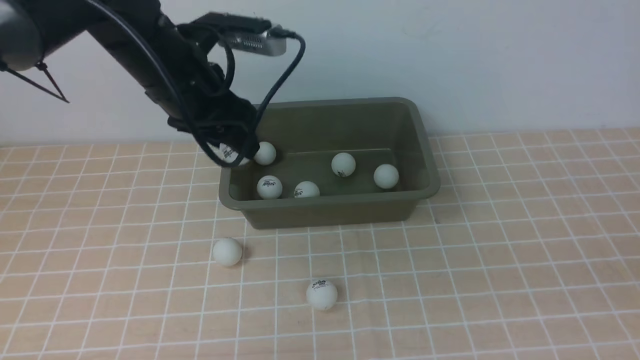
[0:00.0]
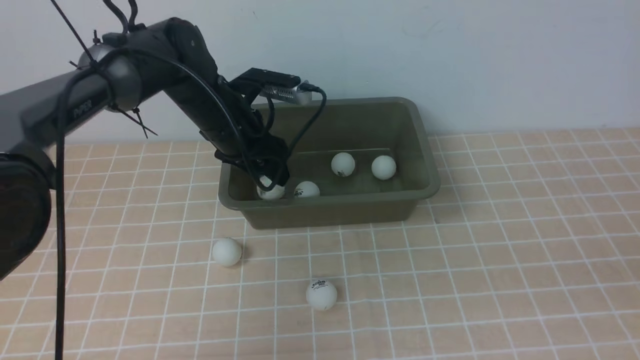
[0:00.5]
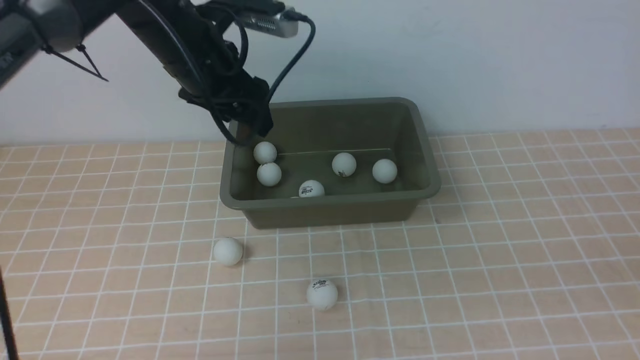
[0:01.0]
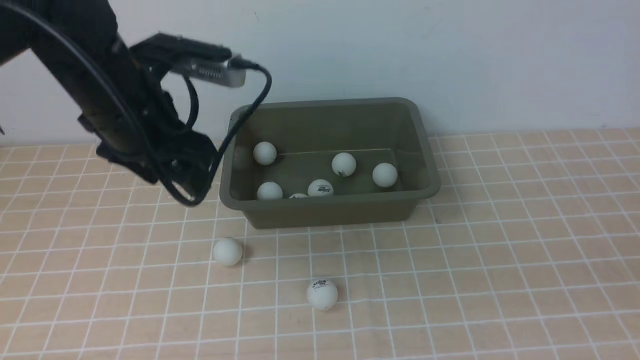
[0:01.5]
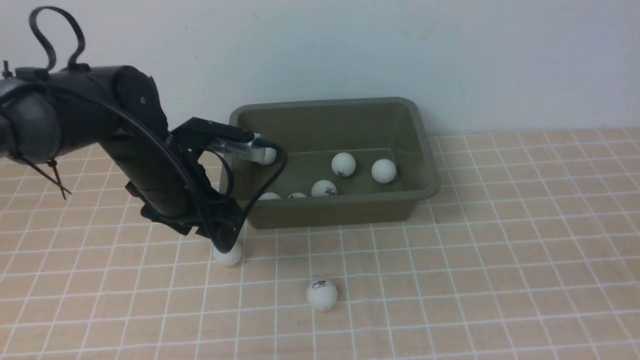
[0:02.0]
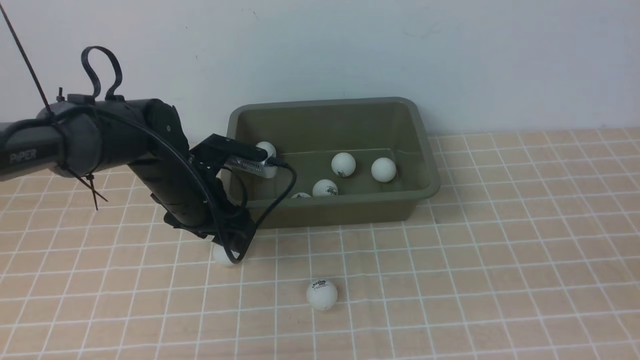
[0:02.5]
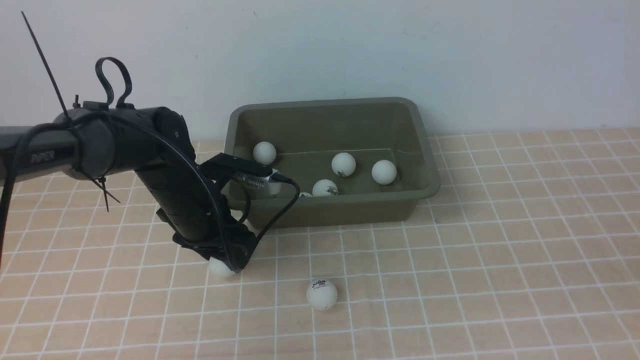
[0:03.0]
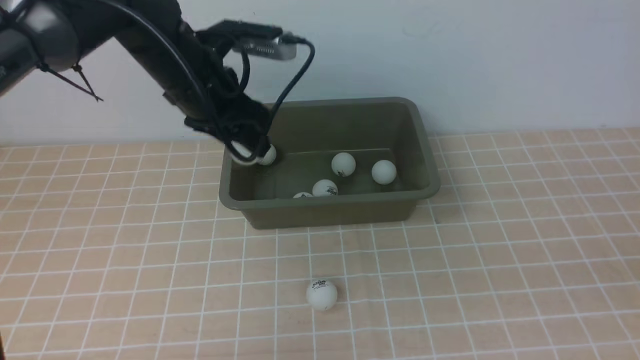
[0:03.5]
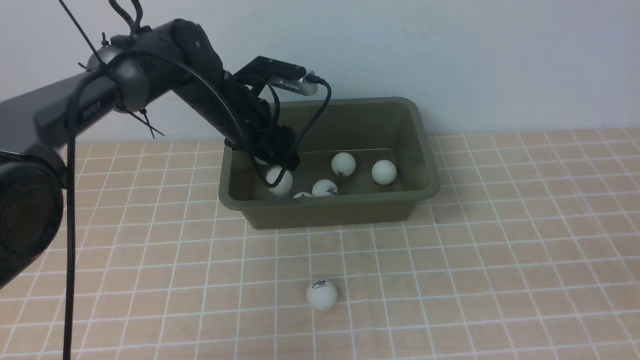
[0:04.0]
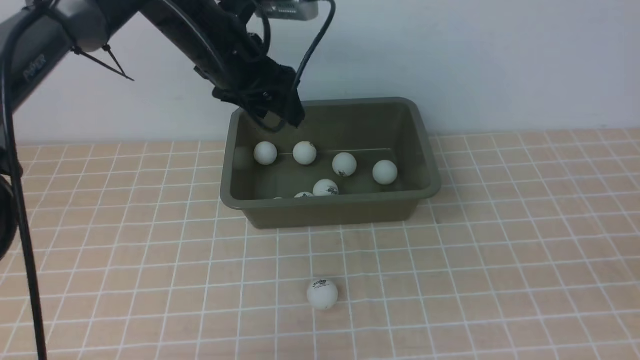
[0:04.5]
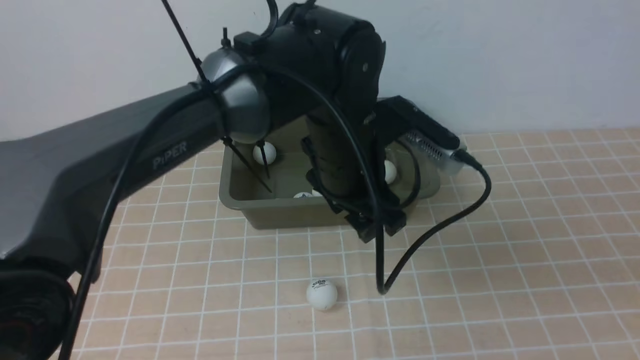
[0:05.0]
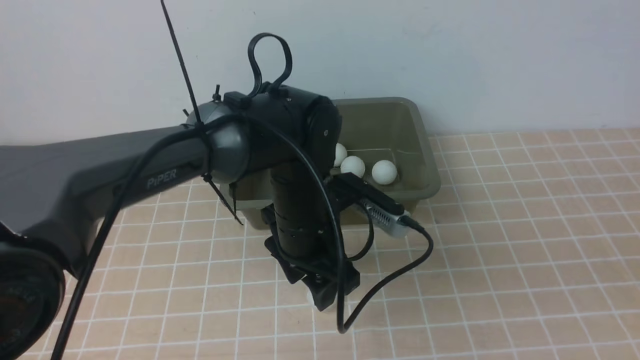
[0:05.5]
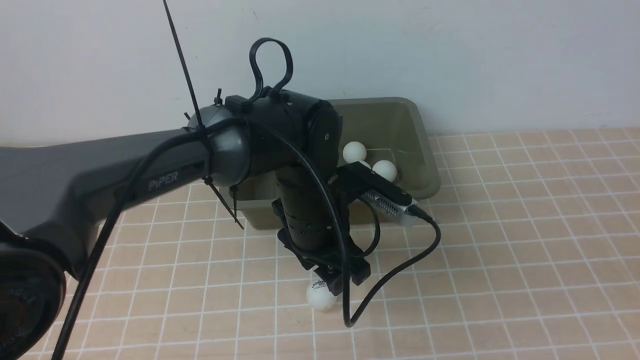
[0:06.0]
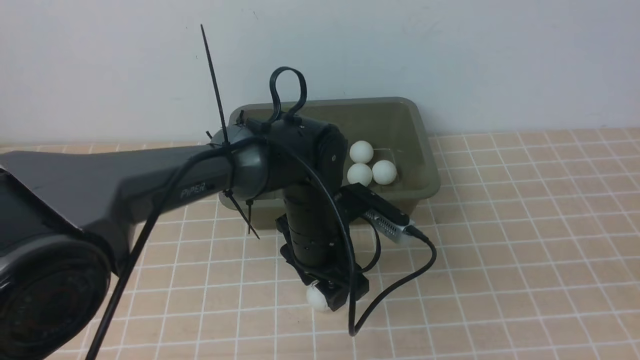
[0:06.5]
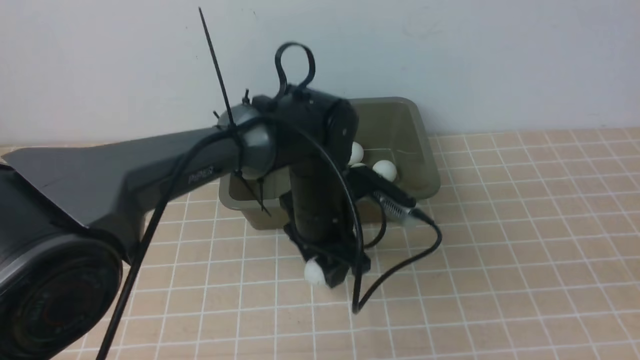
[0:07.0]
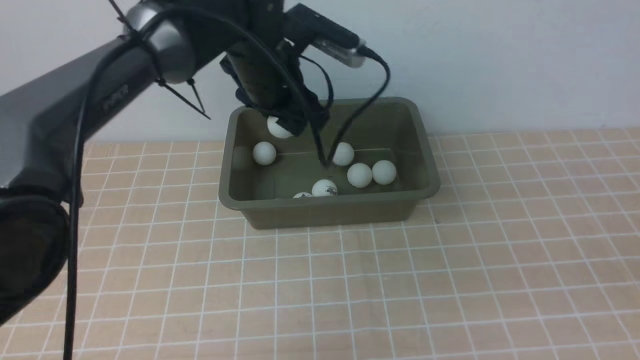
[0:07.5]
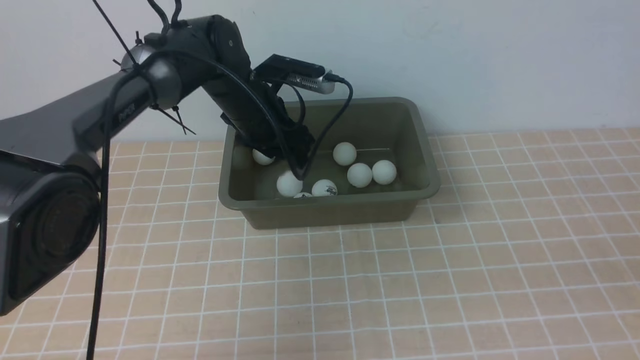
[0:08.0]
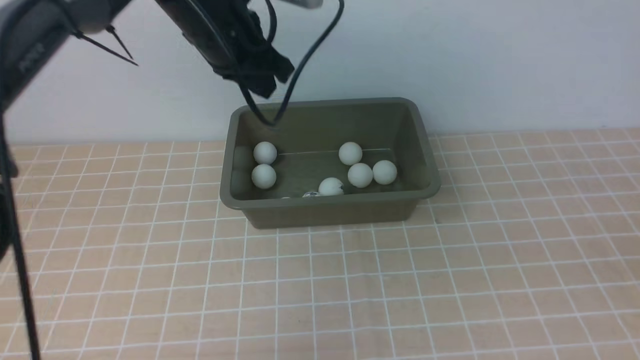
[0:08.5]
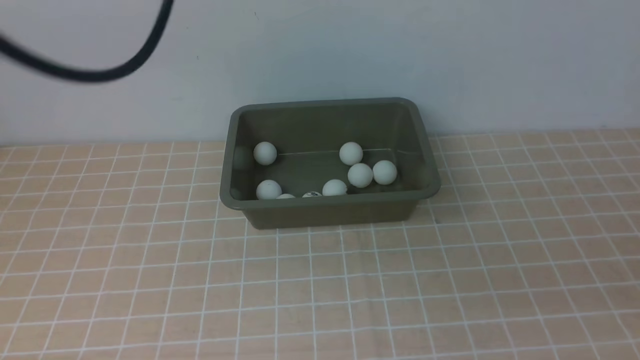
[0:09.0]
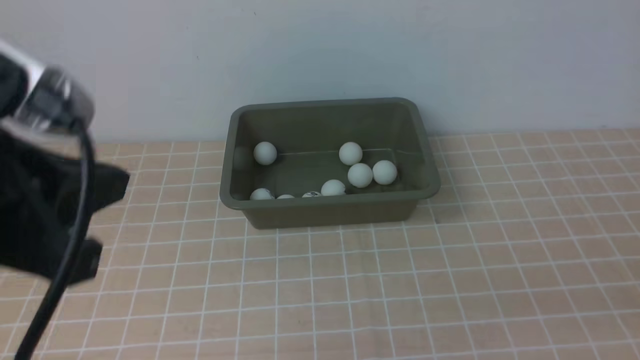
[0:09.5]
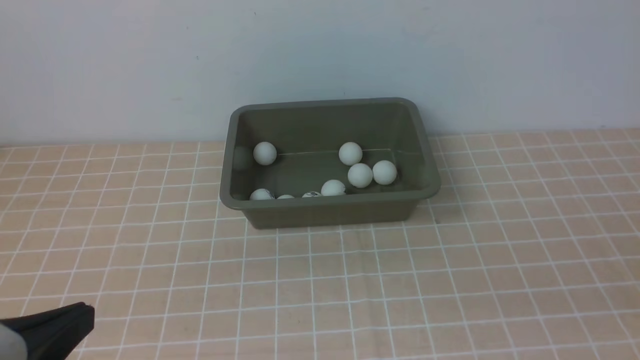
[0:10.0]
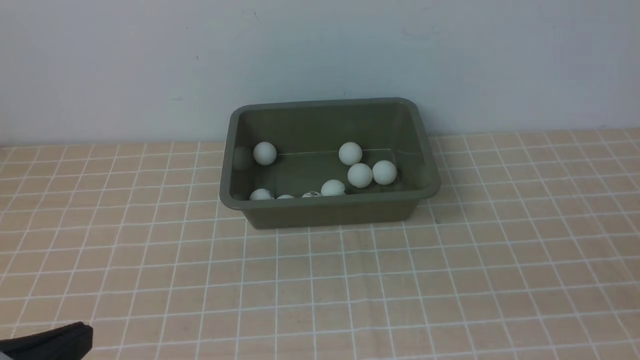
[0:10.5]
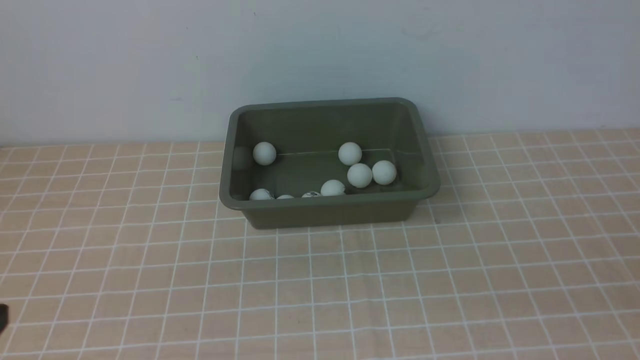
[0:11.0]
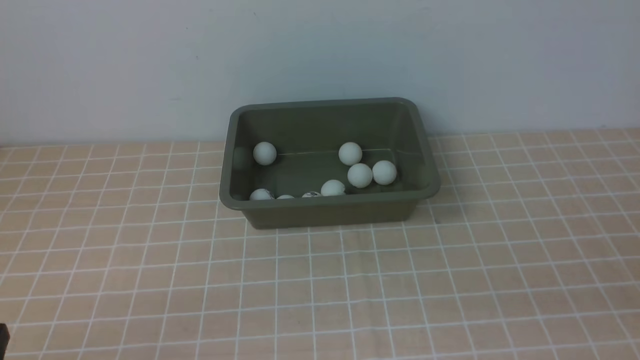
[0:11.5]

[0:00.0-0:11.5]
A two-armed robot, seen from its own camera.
Step, 0:01.0 to 0:03.0: use the left arm to clamp the table tennis ball closest to it.
Step, 0:03.5 to 0:04.0: use the left arm to put the table tennis ball into the box.
Step, 0:04.5 to 0:06.5: use the left arm to clamp the table tennis ball closest to it.
Step, 0:07.5 to 0:08.0: use the left arm to put the table tennis ball into the box.
0:00.0 to 0:02.0: The left gripper travels downward by roughly 5 cm, and reaches some 5 cm forward, then returns.
0:02.0 to 0:04.0: The left gripper goes about 10 cm forward.
0:04.0 to 0:06.0: The left gripper goes some 15 cm backward and to the right.
0:06.0 to 0:07.5: The left gripper is displaced forward and upward by approximately 10 cm.
0:07.5 to 0:09.5: The right gripper moves downward, some 5 cm; the left gripper goes about 30 cm backward, to the left and upward, and closes its fingers.
0:09.5 to 0:11.5: The left gripper moves downward and backward, about 25 cm.

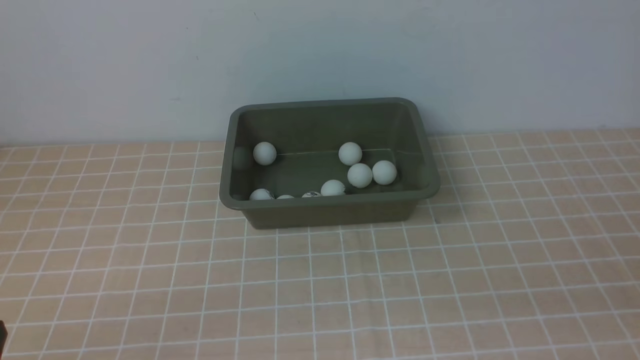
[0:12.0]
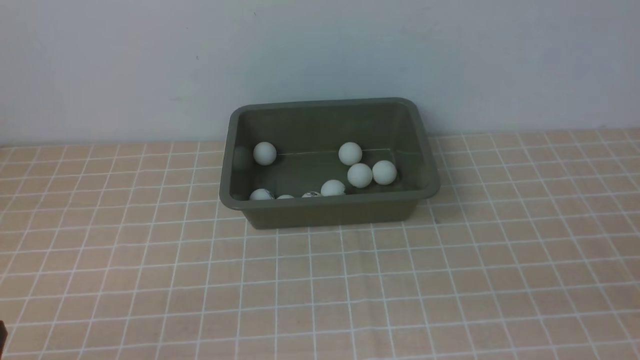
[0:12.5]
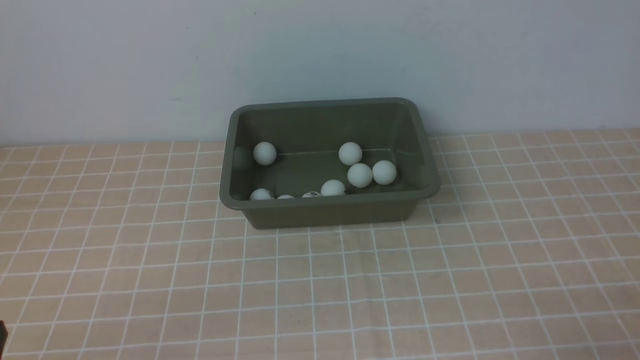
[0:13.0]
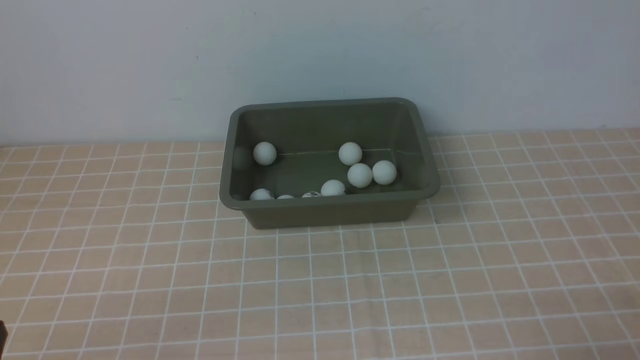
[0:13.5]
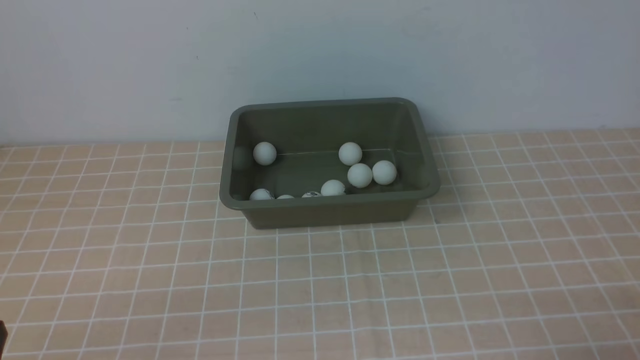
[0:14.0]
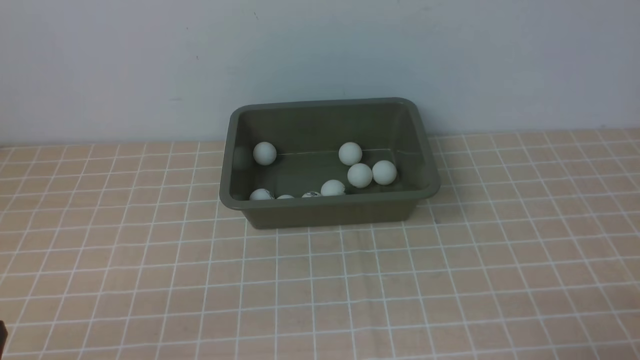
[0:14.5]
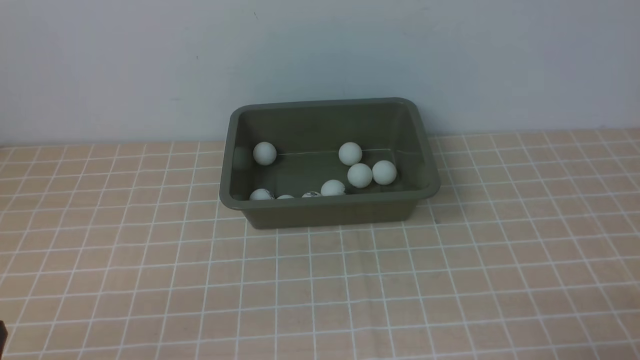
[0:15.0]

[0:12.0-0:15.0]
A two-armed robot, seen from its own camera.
0:13.5 to 0:15.0: Neither gripper changes place.
